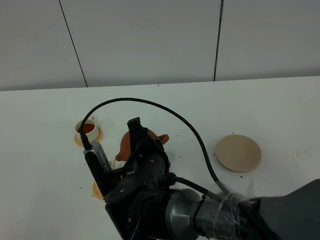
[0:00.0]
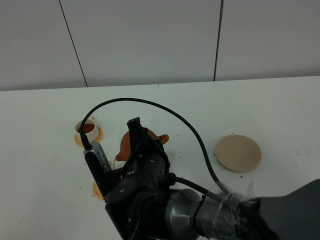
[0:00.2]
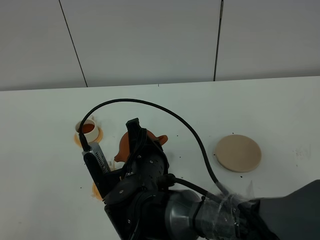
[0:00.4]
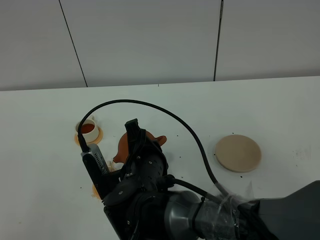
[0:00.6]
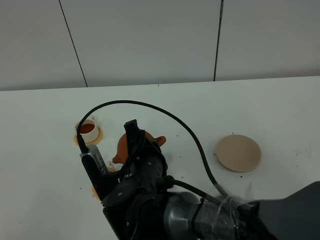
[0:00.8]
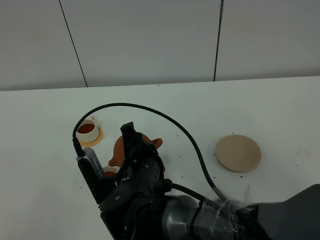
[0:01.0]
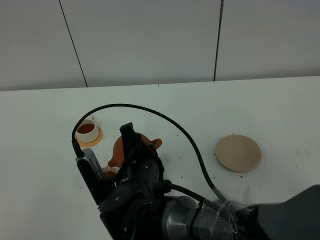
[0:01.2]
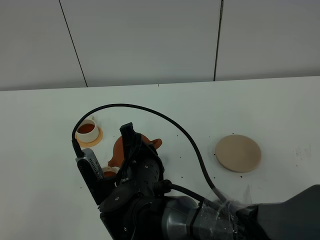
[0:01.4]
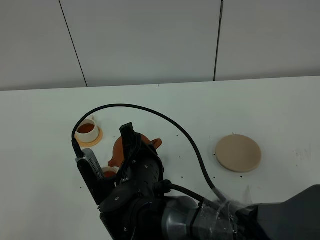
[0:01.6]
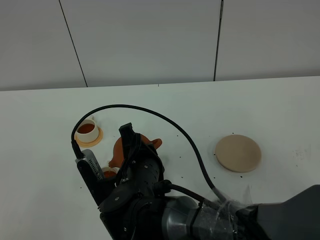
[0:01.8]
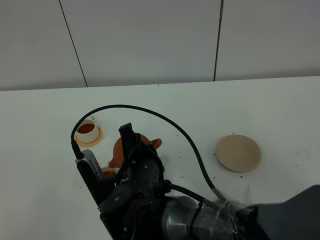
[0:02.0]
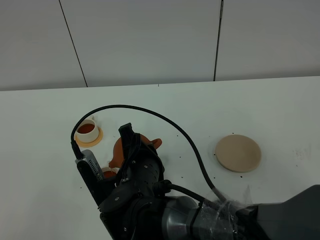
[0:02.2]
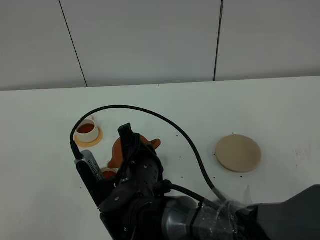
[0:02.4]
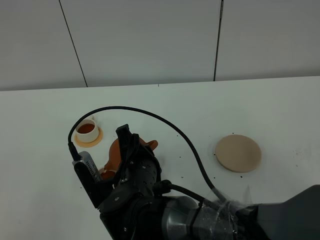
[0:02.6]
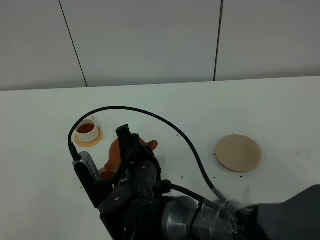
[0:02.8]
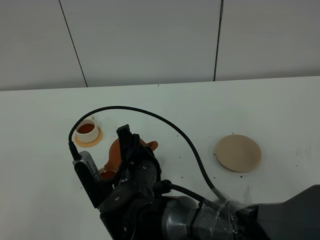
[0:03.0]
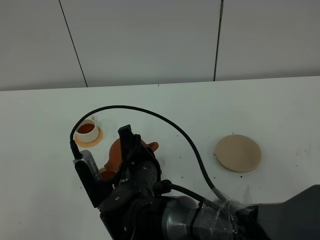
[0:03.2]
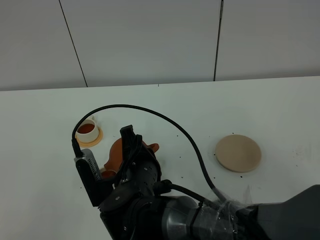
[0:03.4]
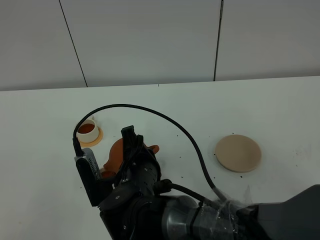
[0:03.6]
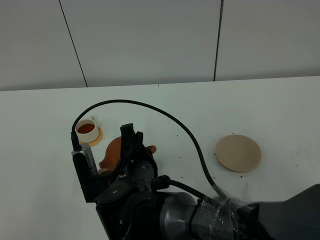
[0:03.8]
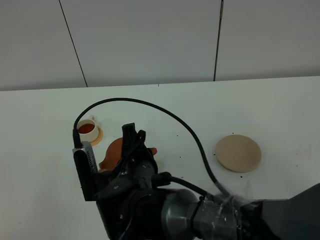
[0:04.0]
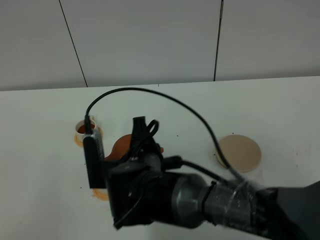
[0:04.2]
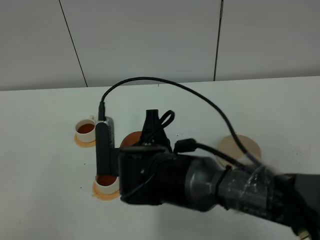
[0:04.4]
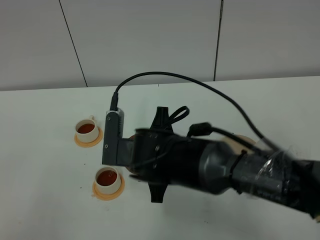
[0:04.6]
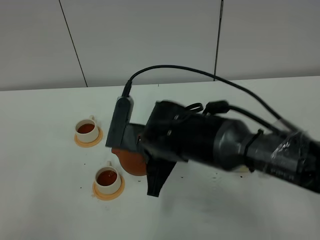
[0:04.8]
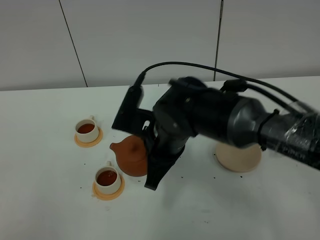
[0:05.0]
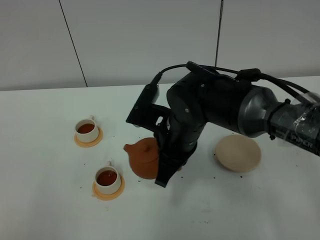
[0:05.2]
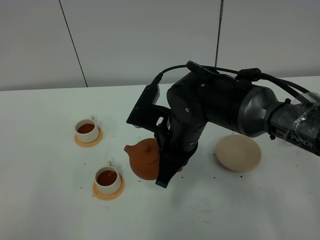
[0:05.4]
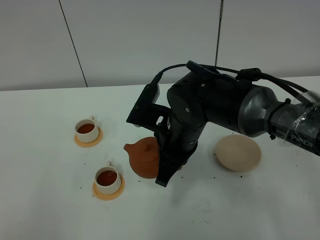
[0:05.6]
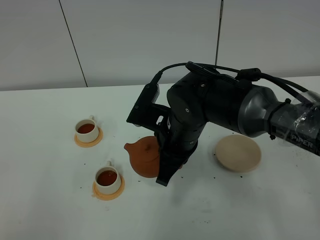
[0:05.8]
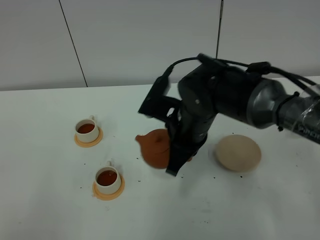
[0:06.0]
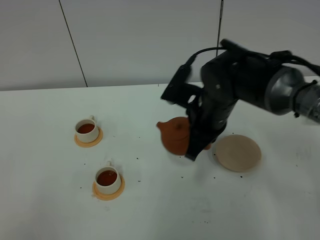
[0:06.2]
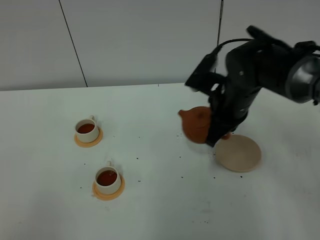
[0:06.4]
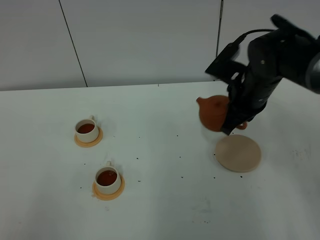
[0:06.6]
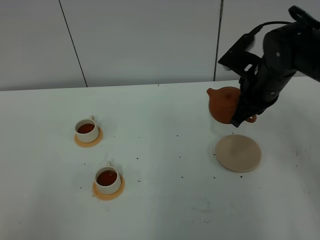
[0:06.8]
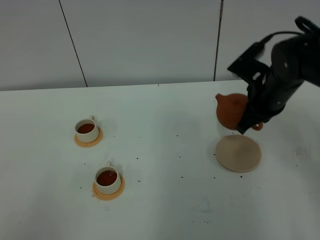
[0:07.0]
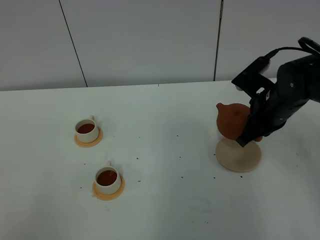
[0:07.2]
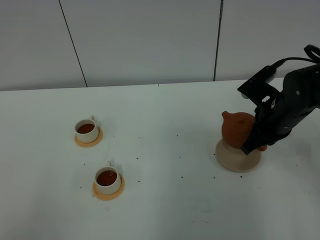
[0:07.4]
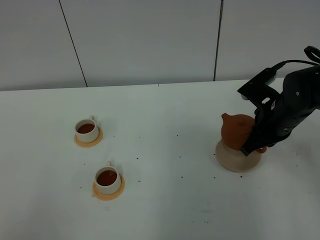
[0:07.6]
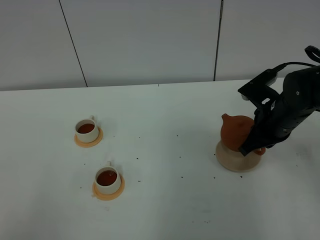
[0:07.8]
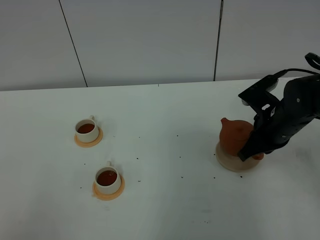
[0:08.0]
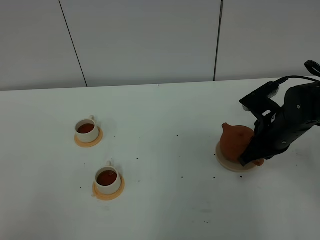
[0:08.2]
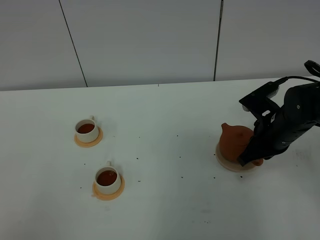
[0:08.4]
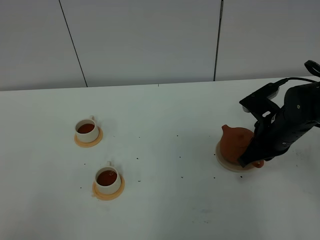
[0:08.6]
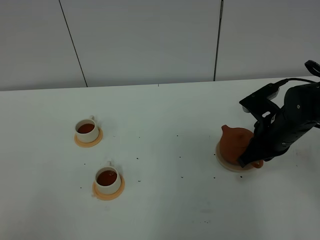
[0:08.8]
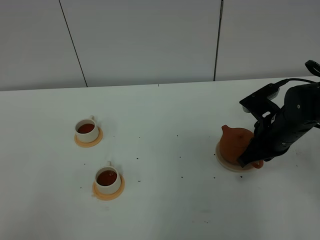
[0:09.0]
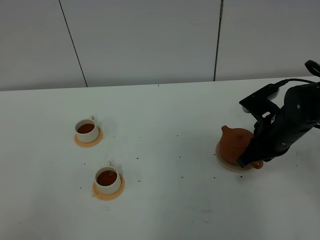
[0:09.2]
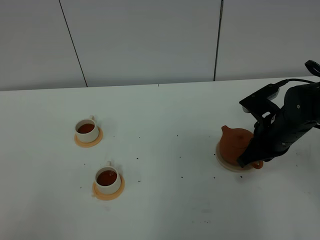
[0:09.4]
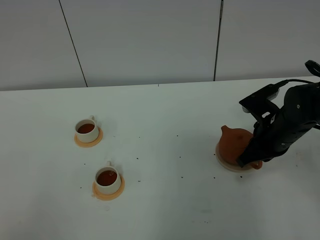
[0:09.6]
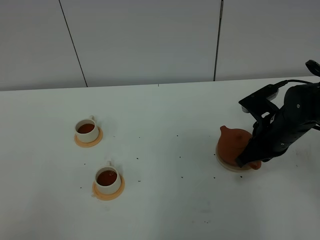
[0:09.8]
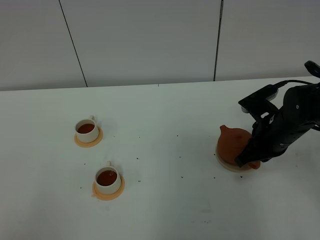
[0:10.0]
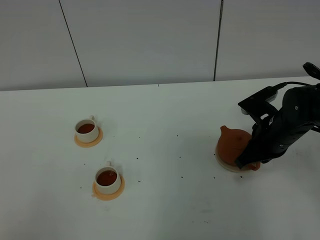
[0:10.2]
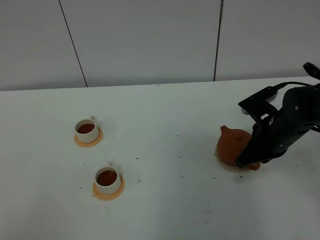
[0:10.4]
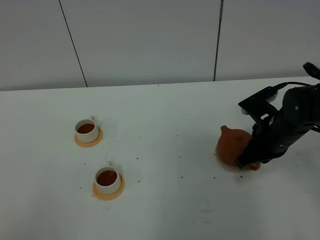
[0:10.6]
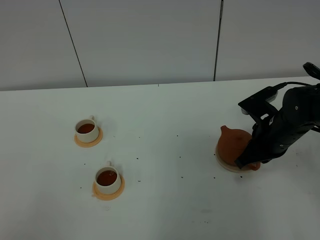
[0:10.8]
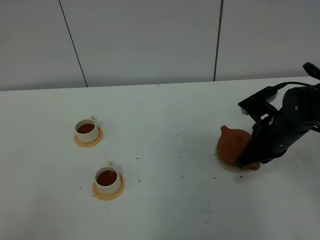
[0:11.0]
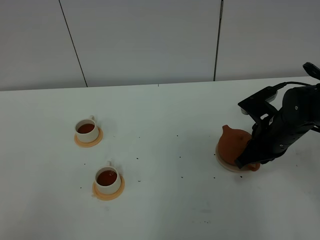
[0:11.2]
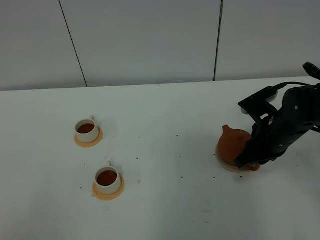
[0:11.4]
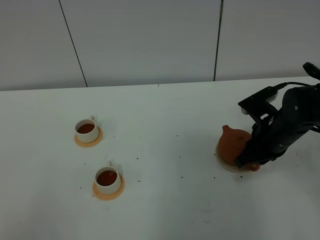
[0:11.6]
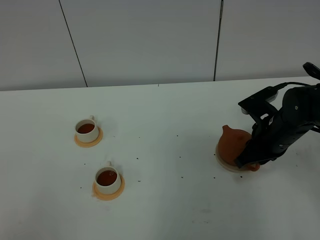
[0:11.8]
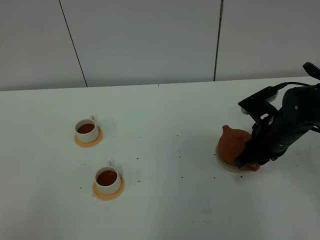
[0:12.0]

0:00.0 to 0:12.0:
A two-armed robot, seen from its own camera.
Task of the whole recording: grasp the brown teapot and pour the tea into the two white teacups one by one, put the brown teapot back in its original place.
Step, 0:00.0 to 0:04.6: Pour tea into the teacup with the right gripper.
0:00.0 to 0:01.6: Both grippers stay put.
0:01.6 to 0:03.0: Both grippers stay about where they are.
0:04.4 to 0:06.0: The right gripper moves to the right and forward, roughly 10 cm.
0:06.0 to 0:07.6: The right gripper shifts some 15 cm to the right.
0:07.6 to 0:09.0: The grippers make only small movements.
0:09.0 to 0:10.4: The two grippers keep their place.

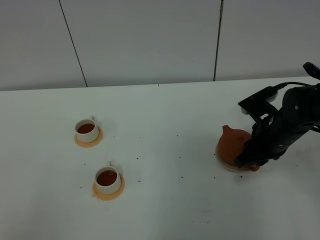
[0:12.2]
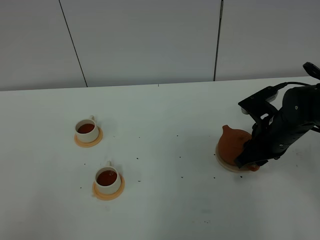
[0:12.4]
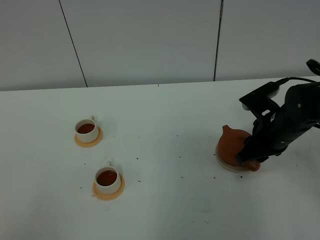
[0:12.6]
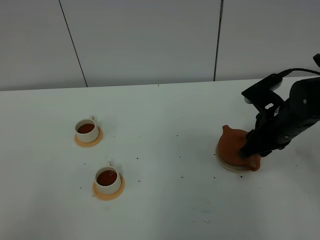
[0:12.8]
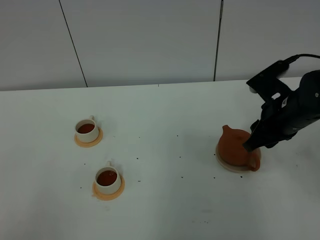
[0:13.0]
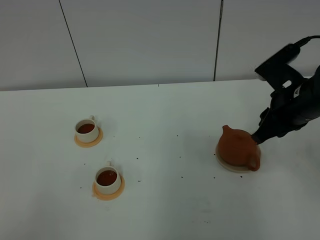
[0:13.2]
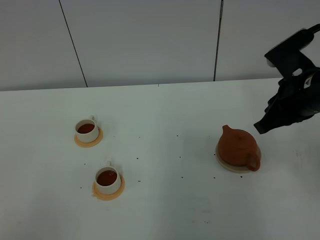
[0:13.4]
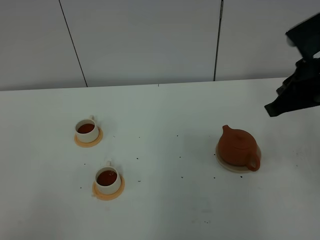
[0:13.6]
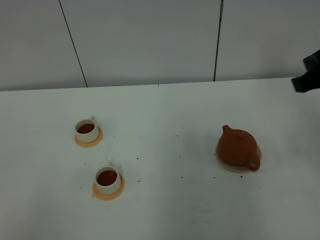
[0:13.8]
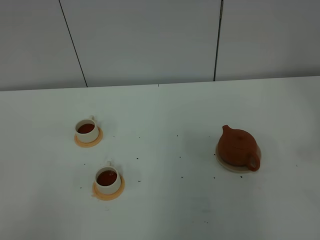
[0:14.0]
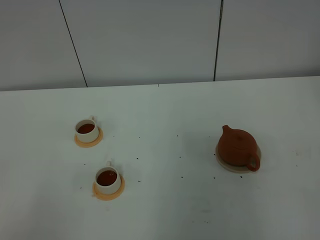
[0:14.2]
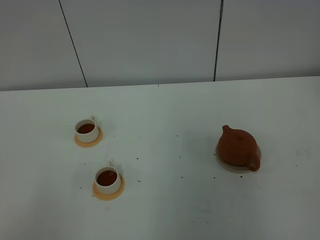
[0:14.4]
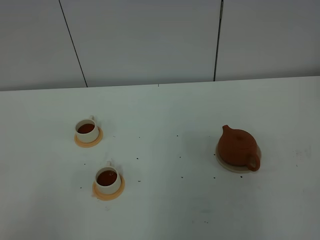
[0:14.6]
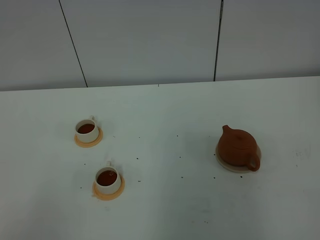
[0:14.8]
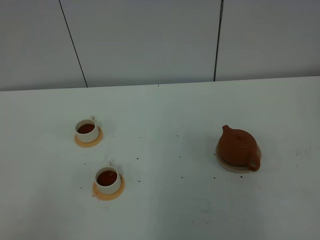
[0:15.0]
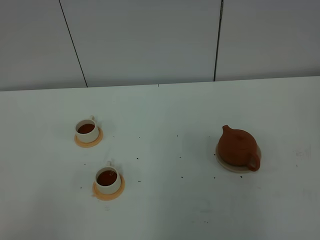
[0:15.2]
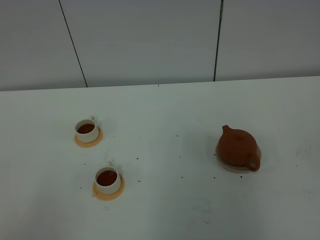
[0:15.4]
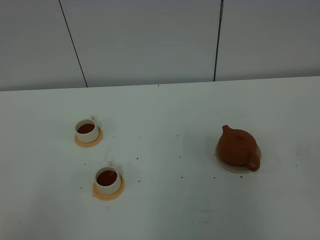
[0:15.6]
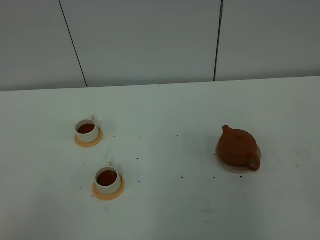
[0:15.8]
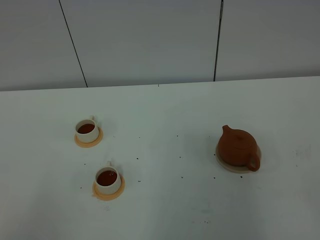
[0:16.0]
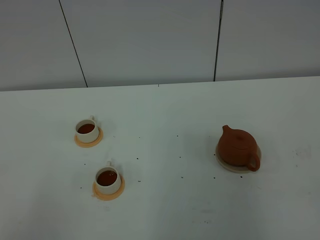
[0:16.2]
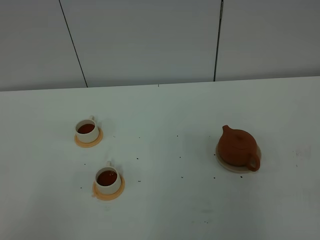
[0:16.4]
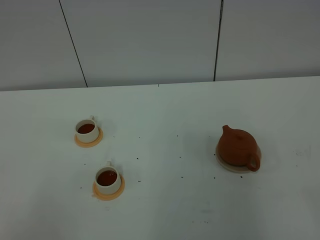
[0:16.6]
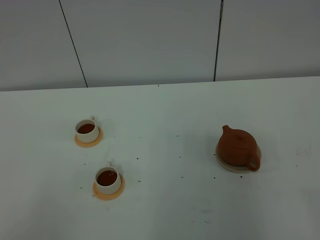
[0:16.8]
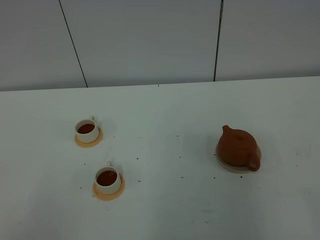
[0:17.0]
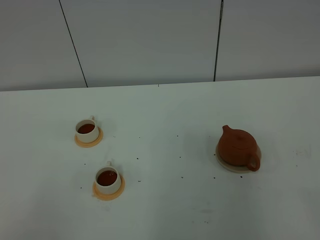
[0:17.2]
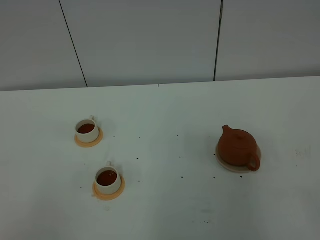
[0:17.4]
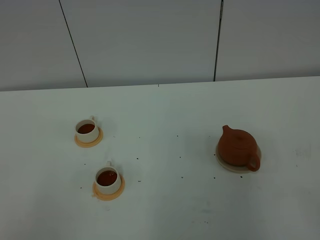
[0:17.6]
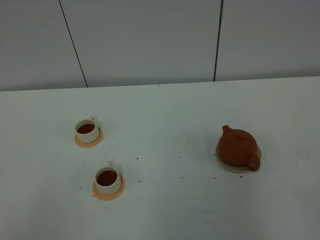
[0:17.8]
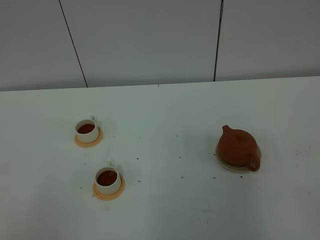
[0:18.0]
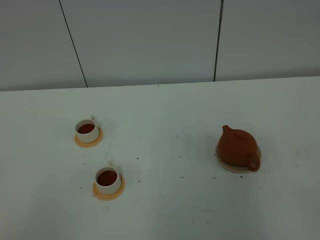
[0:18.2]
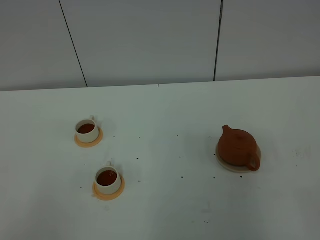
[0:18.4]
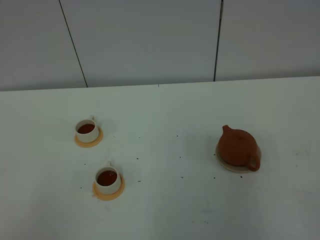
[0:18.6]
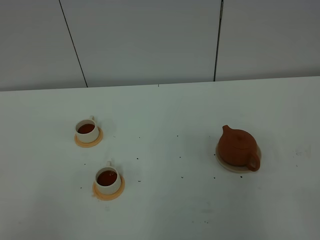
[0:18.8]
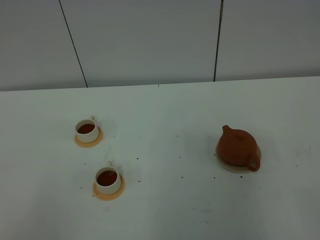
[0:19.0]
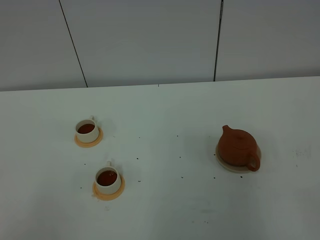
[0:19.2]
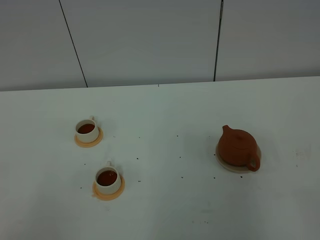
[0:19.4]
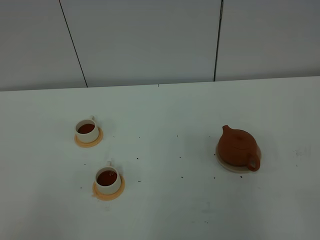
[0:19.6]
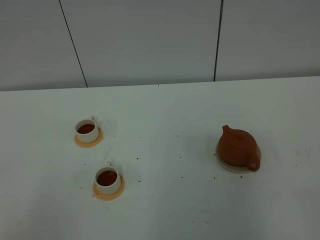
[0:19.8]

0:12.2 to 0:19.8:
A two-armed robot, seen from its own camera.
Task of the whole recording: grasp the brown teapot and pour the tea into the two white teacups one by one, put the brown teapot back in its original place.
0:12.2 to 0:13.8: The right gripper moves upward, about 20 cm, and closes.
0:13.8 to 0:15.2: The right gripper is displaced backward by about 20 cm.
0:16.8 to 0:19.8: Both grippers stay about where they are.
